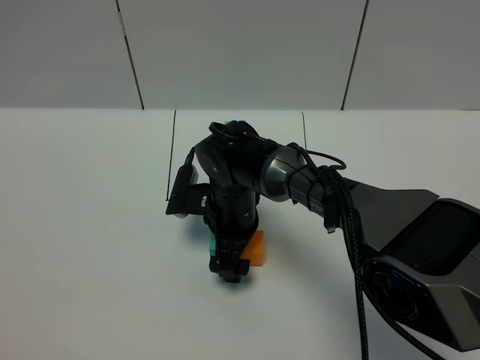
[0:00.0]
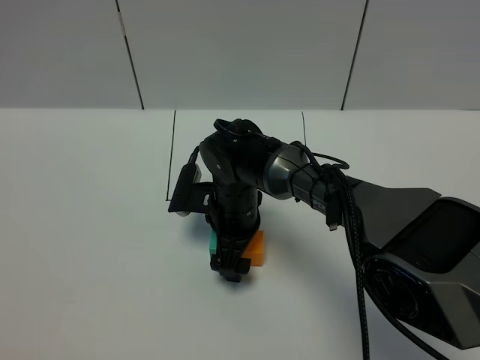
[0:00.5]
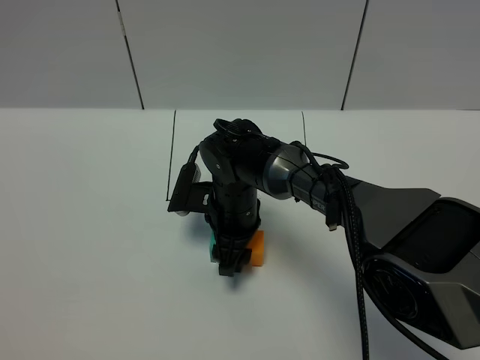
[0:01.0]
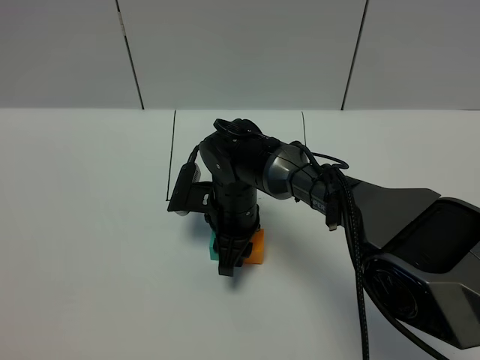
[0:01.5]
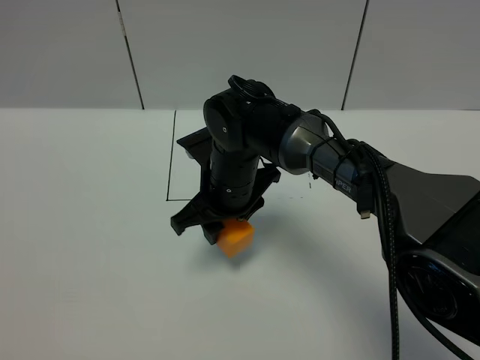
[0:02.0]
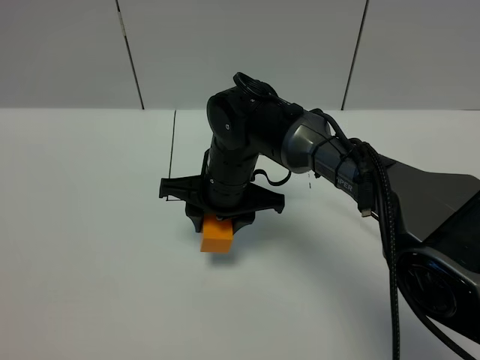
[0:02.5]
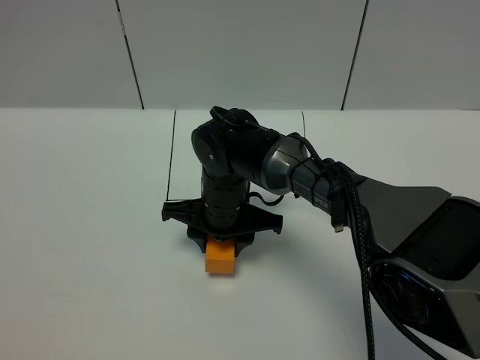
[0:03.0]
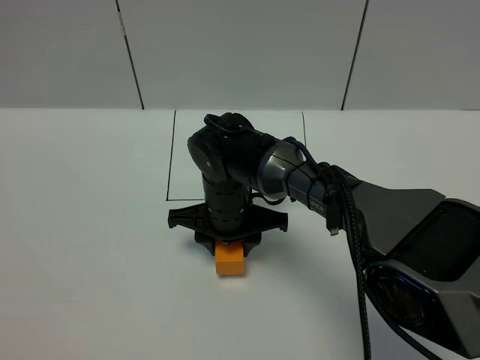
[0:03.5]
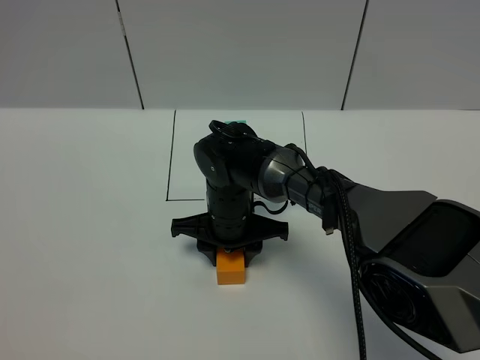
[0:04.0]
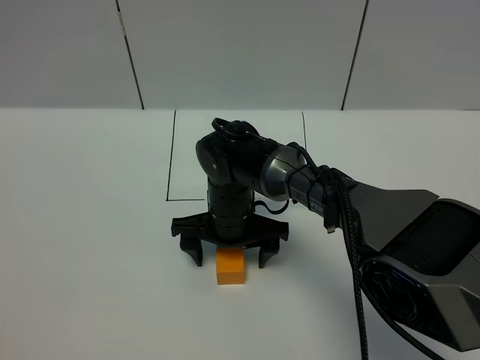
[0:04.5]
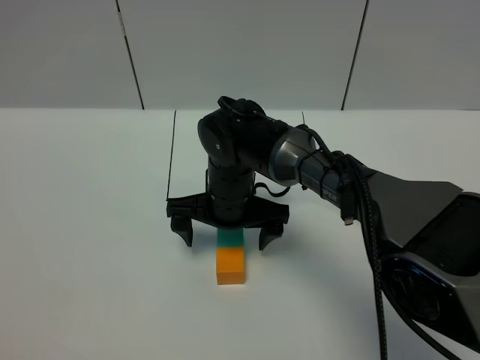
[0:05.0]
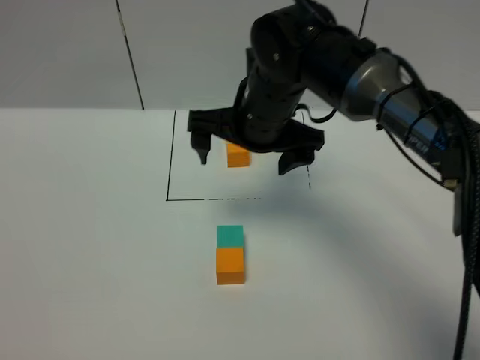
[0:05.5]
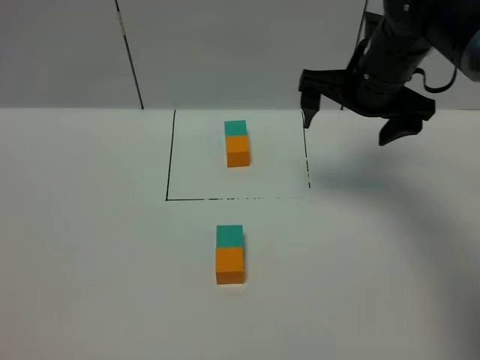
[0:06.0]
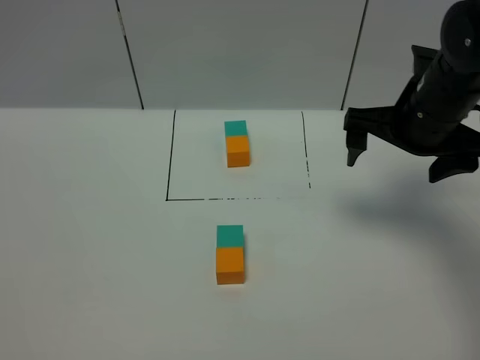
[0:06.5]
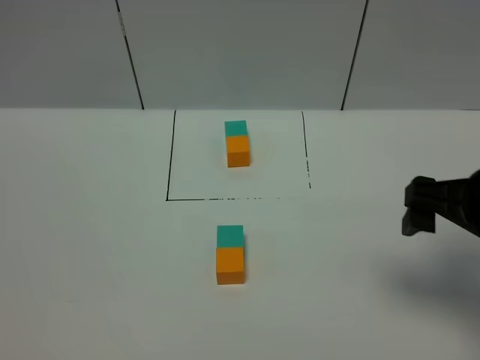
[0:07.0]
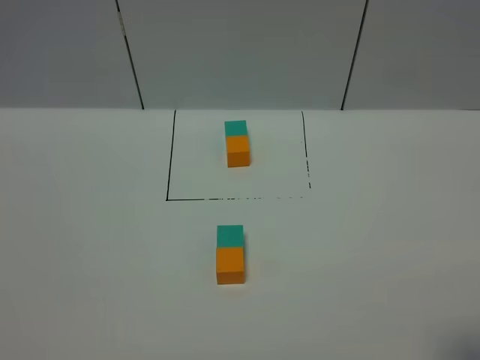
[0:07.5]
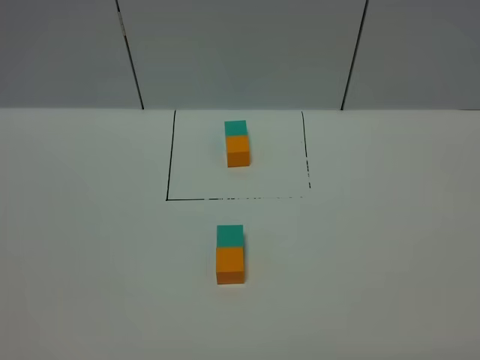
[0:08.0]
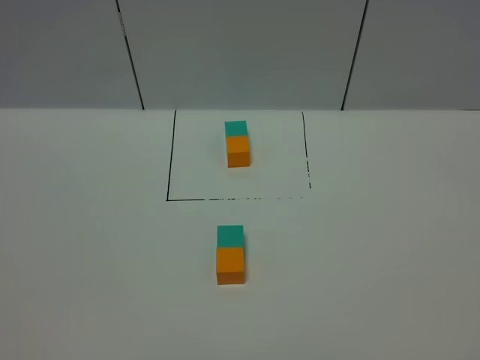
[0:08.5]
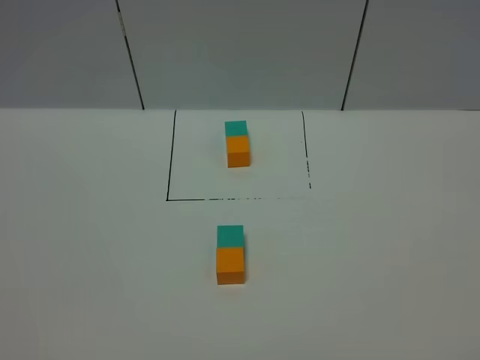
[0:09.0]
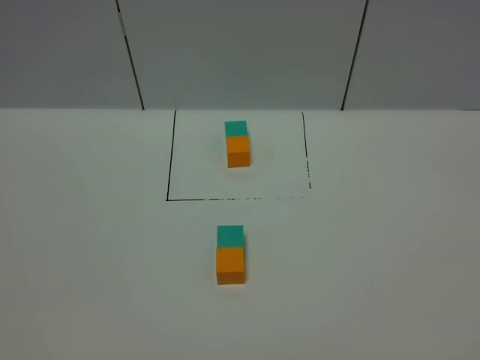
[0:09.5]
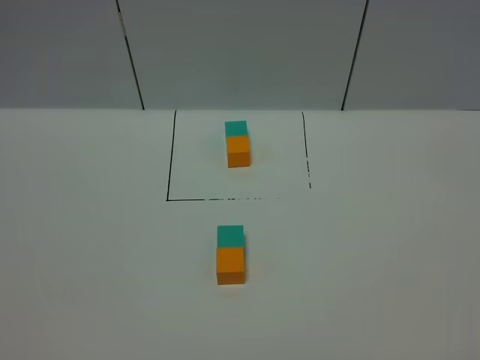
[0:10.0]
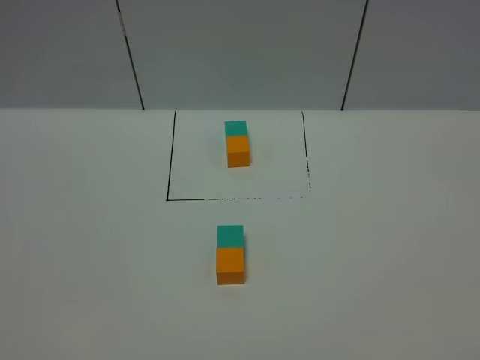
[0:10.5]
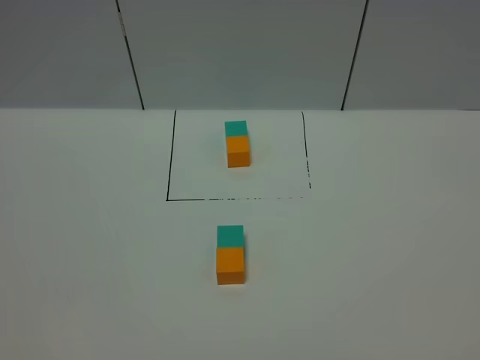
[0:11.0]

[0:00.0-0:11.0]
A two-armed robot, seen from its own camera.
Task of the whole recording: According to the building block template in front, assemble the scattered blocks together.
Step, 0:00.0 to 0:05.0: Adjust the position of the cube with the right gripper.
0:00.0 to 0:02.0: The right gripper shifts some 5 cm upward, and closes.
0:03.5 to 0:05.5: The right gripper travels upward and to the right by about 15 cm, and opens.
0:05.5 to 0:07.5: The right gripper goes about 35 cm backward and to the right.
